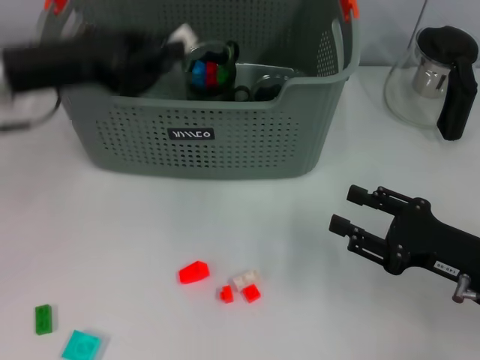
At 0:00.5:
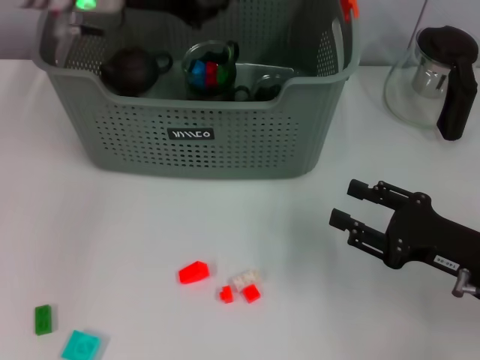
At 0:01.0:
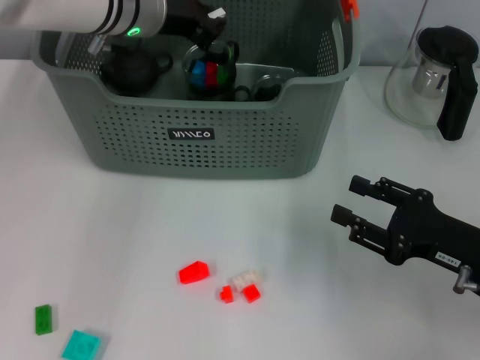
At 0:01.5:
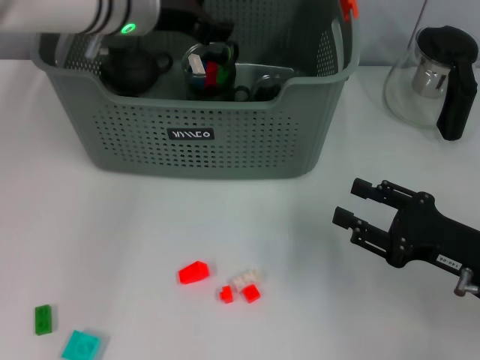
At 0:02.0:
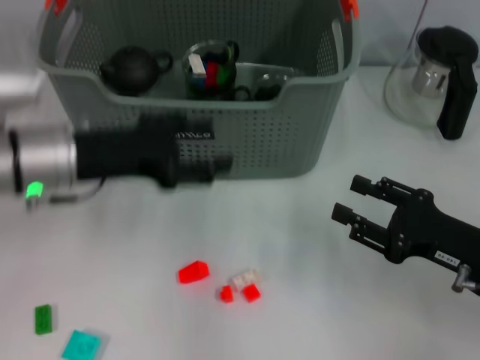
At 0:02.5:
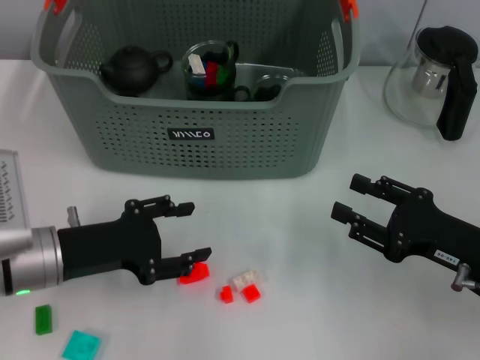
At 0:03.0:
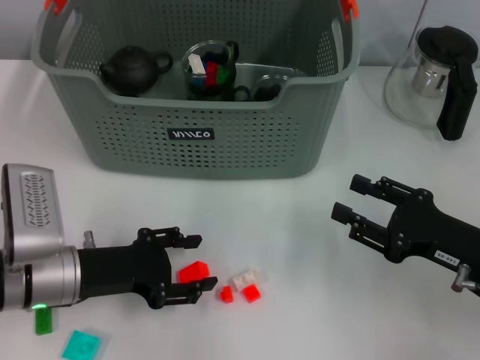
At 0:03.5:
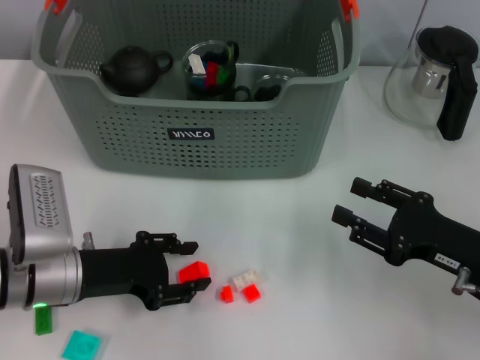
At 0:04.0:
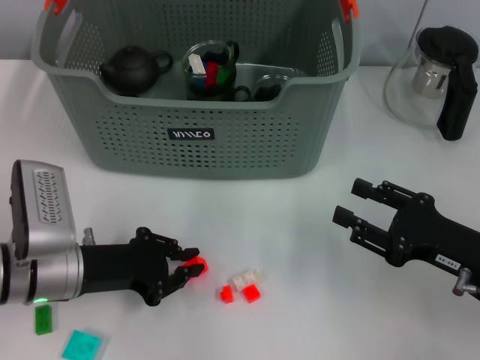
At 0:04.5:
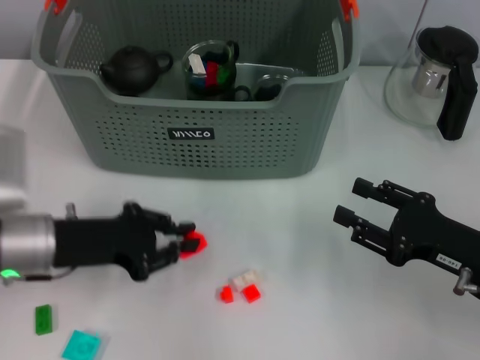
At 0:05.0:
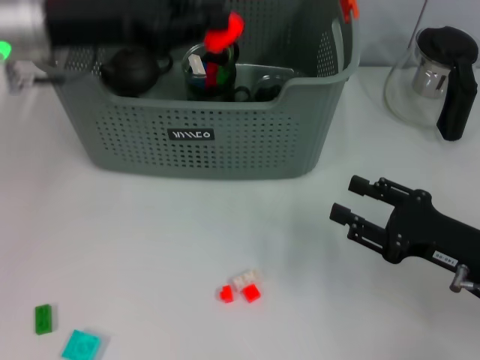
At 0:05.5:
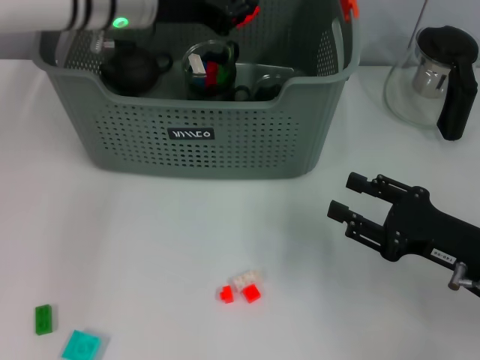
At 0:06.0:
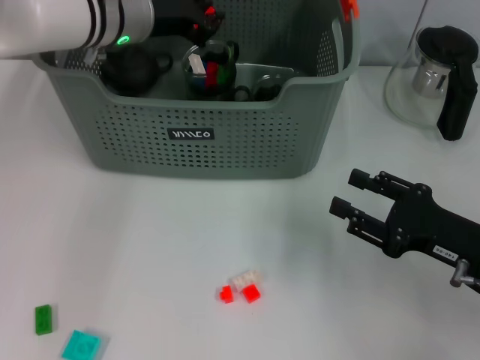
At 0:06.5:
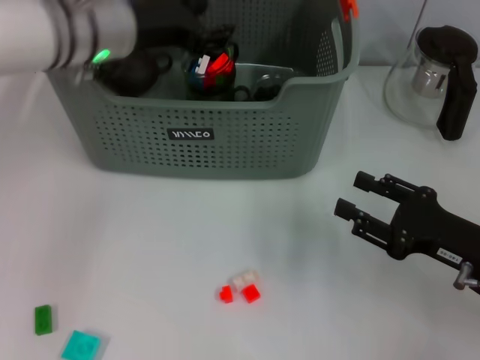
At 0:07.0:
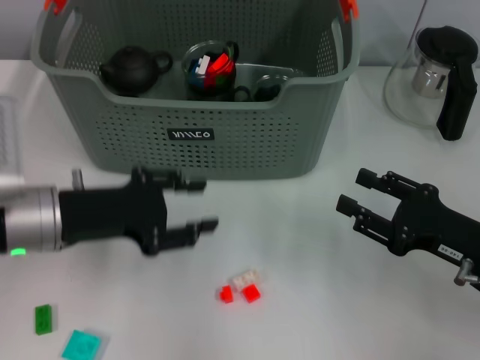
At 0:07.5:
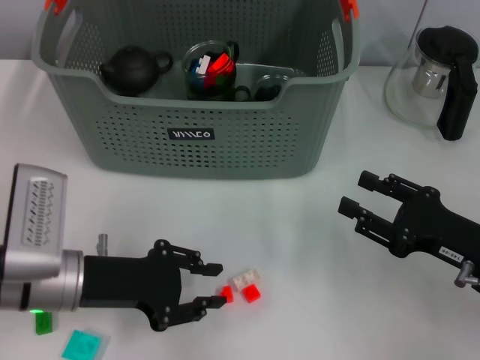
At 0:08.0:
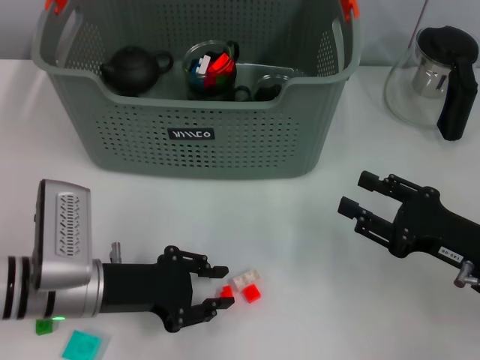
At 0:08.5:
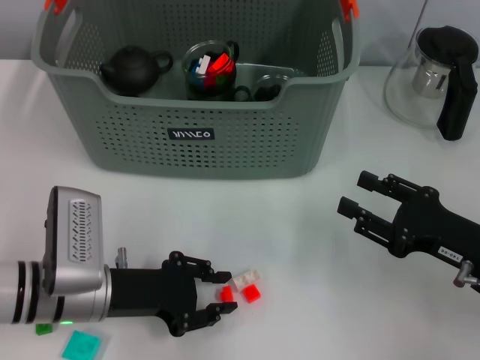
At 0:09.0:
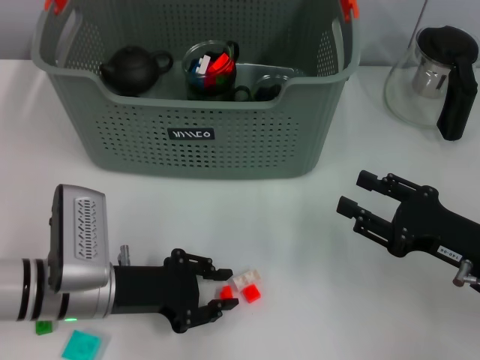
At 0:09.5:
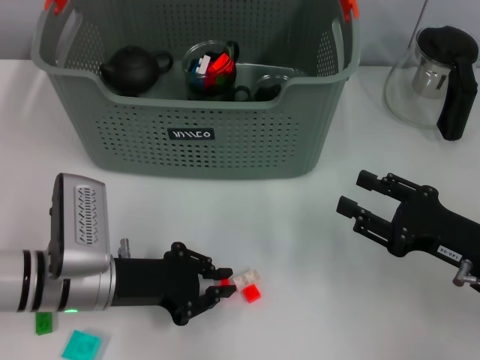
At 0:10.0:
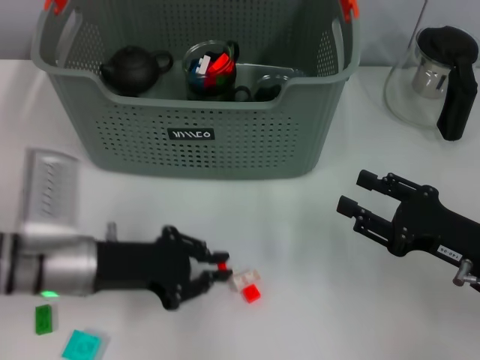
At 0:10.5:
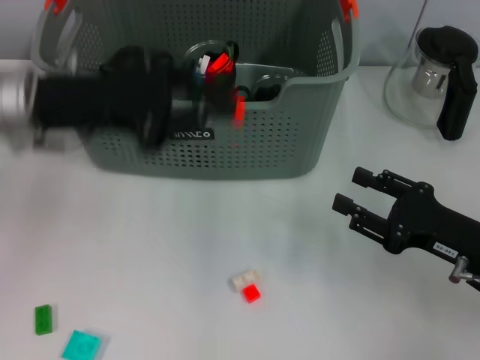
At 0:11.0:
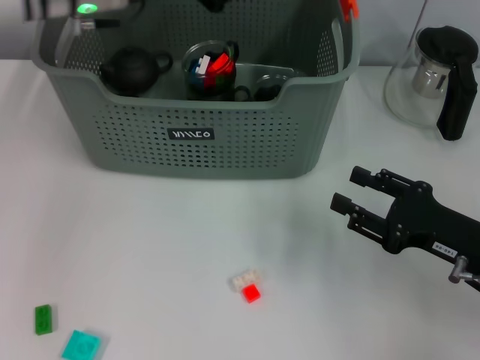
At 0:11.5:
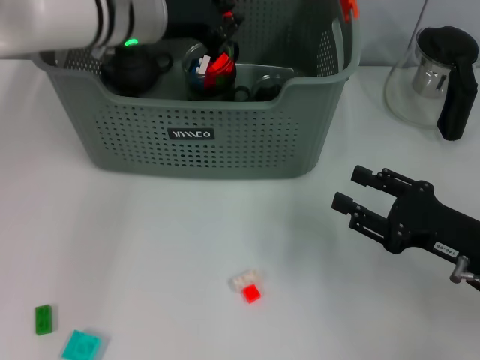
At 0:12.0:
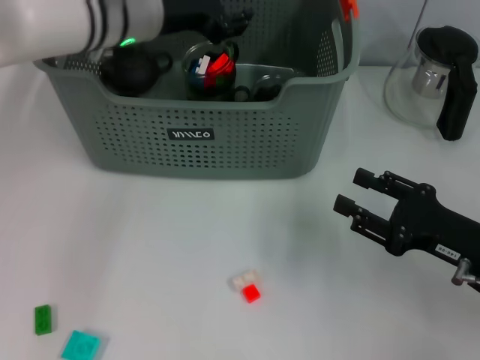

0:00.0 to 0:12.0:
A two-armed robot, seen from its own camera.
Task of the whole recording: pick up the teacup on the table and place it into the storage bin, pick up the block on the table and place it into the storage bin.
Step, 0:01.5 to 0:04.0: Grasp the orange block with left gripper.
Step, 0:04.5 to 0:06.0: Place the orange block in the storage box with left gripper.
Step, 0:06.5 to 0:09.5: Grasp the orange block with left gripper.
Step, 0:10.0 to 0:11.5: Place the orange block in the storage box with left gripper.
0:00.0 to 0:02.0: The left gripper is displaced downward by some 5 cm, travels forward and back again, roughly 10 cm each way, and opens its fingers.
0:02.0 to 0:04.0: The left gripper moves downward and backward, some 10 cm, and closes its fingers.
0:04.0 to 0:06.0: The left gripper is displaced forward, upward and to the right by approximately 25 cm.
0:06.0 to 0:08.0: The left gripper shifts some 25 cm backward and downward.
0:08.0 to 0:10.0: The grippers move only a little.
0:10.0 to 0:12.0: The left gripper is displaced forward, upward and to the right by roughly 25 cm, and opens.

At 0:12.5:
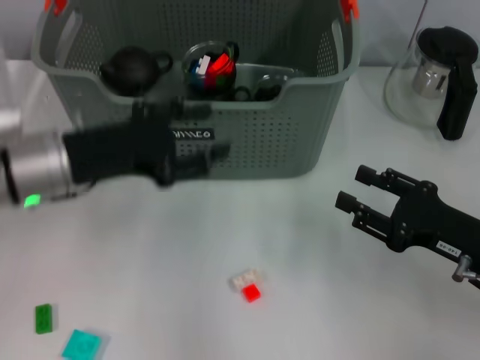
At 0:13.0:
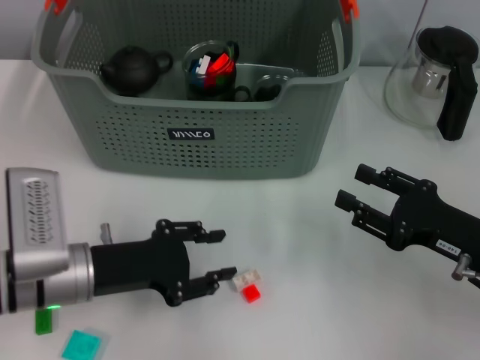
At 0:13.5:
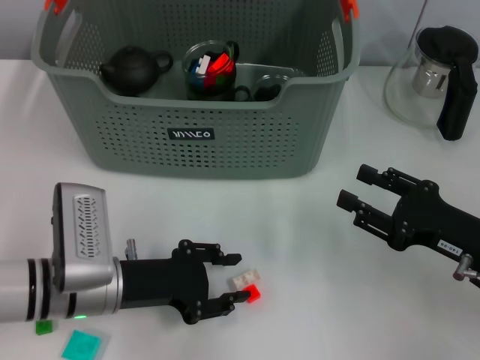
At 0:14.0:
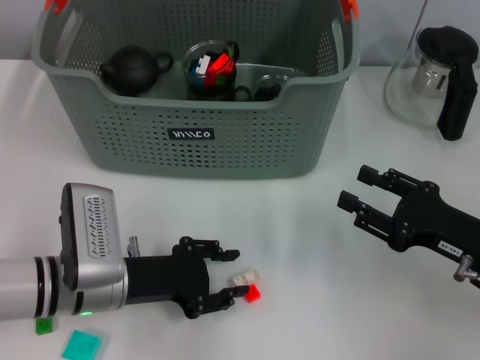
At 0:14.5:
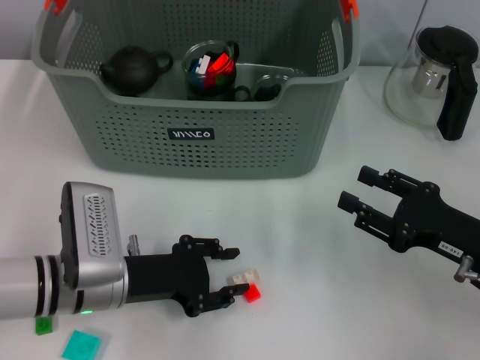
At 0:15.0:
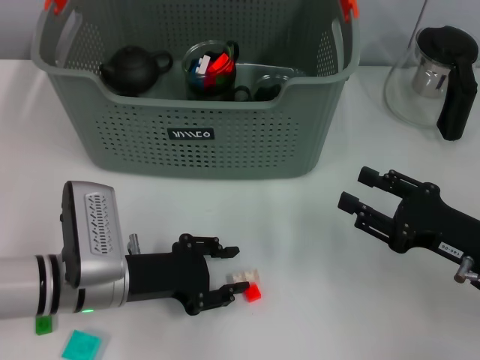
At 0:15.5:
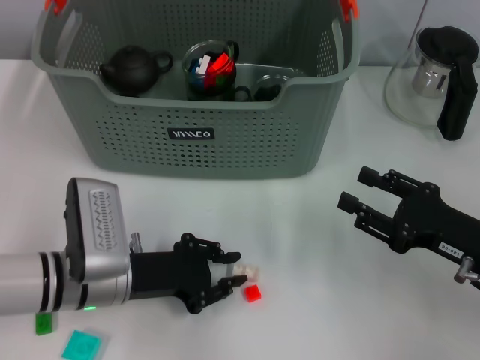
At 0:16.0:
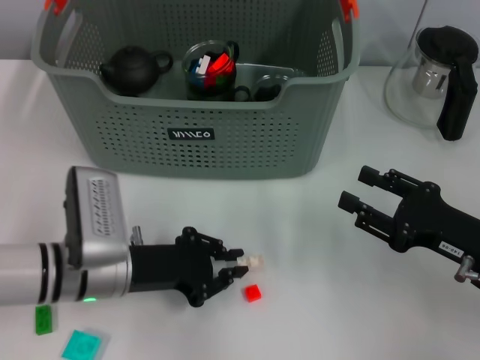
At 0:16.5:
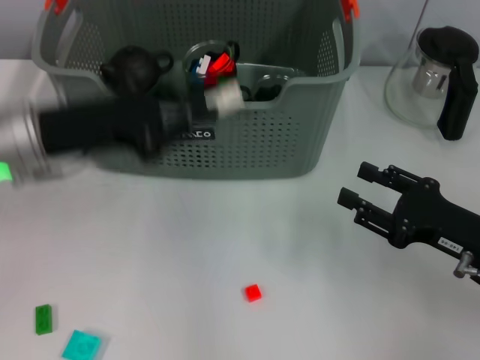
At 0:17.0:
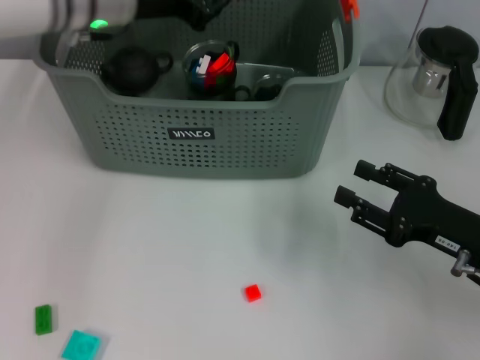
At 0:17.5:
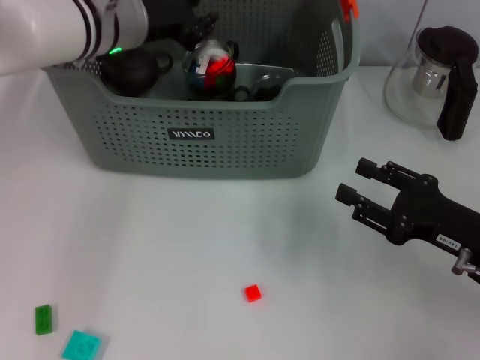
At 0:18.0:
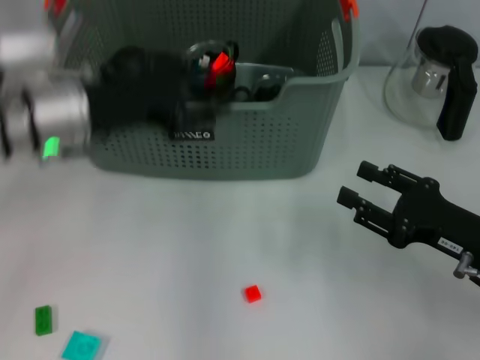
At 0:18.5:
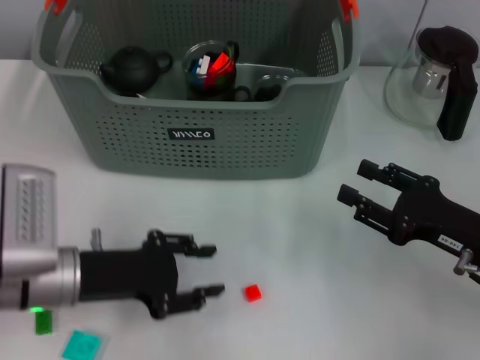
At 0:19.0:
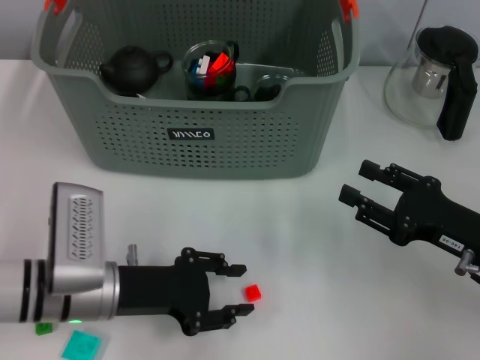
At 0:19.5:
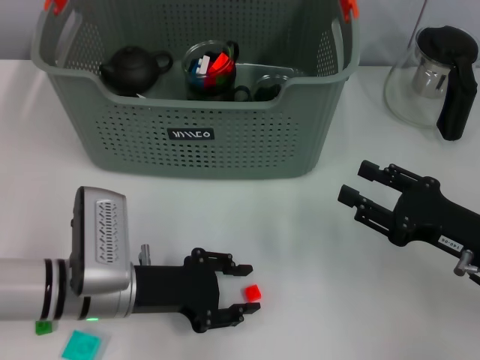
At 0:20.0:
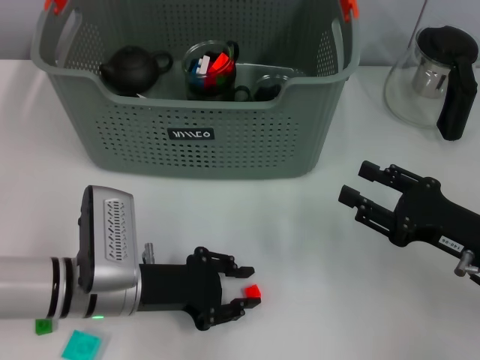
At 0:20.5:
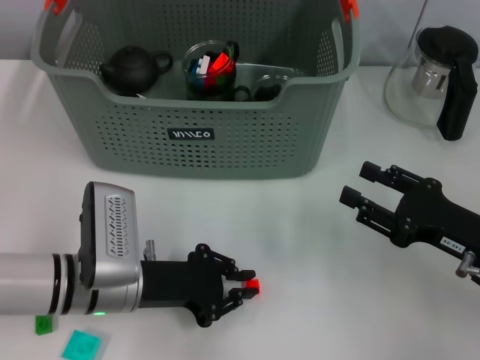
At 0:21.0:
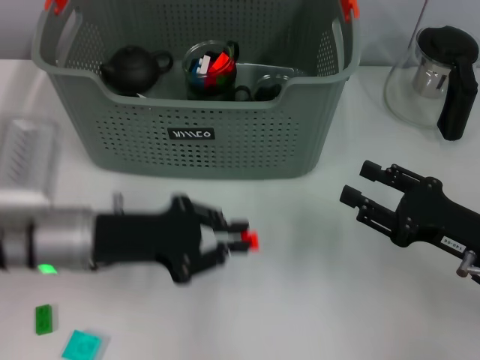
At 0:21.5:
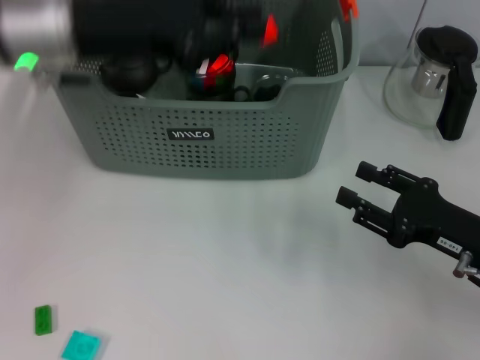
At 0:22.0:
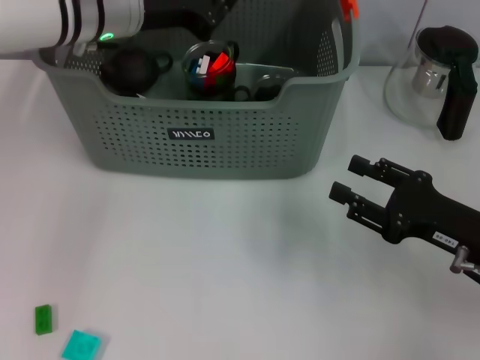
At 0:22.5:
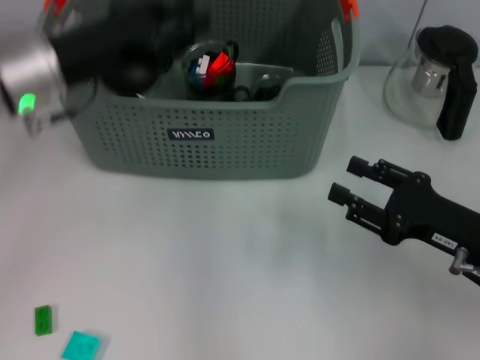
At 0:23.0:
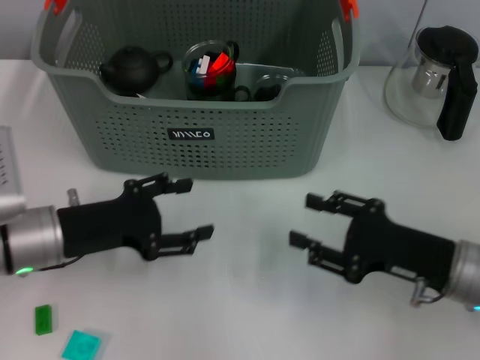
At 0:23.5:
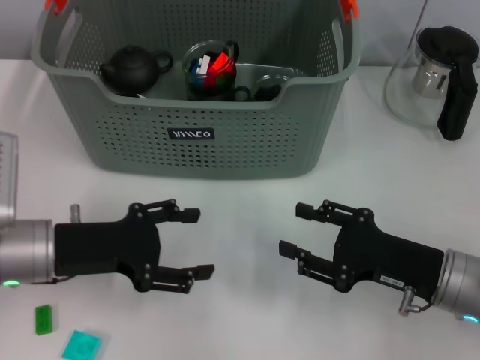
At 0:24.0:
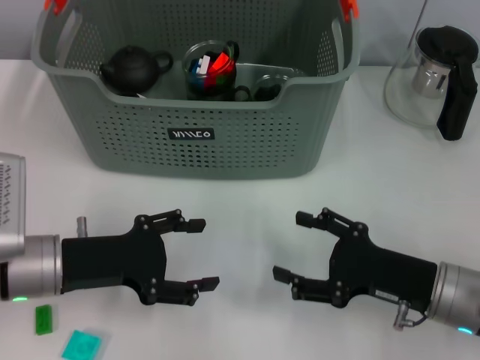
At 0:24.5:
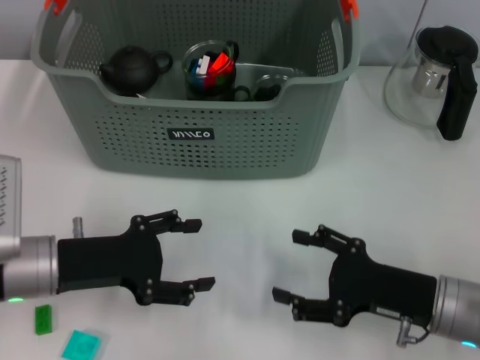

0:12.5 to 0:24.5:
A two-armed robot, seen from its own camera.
Task of the whole recording: pick up the teacup on the table and place it into the storage bin, pick up the block on the table and place it into the storage bin.
Step, 0:12.5 to 0:15.5: Grasp the white block with left gripper.
Step, 0:16.0 to 0:17.5: Place the white block in the storage box with left gripper.
Step, 0:18.0 to 0:20.0: Grasp the orange block with left gripper.
Step, 0:20.5 to 0:21.5: Place the orange block in the storage box with left gripper.
0:12.5 to 0:14.5: The left gripper is displaced downward by approximately 10 cm.
0:14.5 to 0:16.5: The left gripper is displaced upward by roughly 15 cm, and closes up.
0:16.5 to 0:18.5: The left gripper moves downward, about 10 cm, travels forward and back again, about 10 cm each way, and opens its fingers.
0:18.5 to 0:20.5: The left gripper moves to the right, roughly 5 cm, and closes up.
0:20.5 to 0:22.5: The left gripper moves upward and forward, some 20 cm.
0:22.5 to 0:24.5: The right gripper shifts by roughly 5 cm; the left gripper shifts roughly 15 cm downward and backward, and opens.

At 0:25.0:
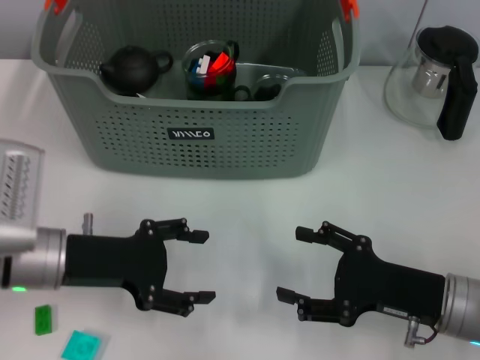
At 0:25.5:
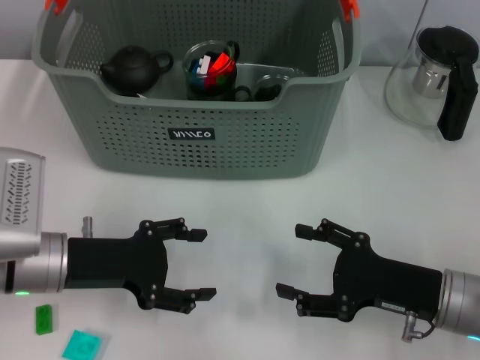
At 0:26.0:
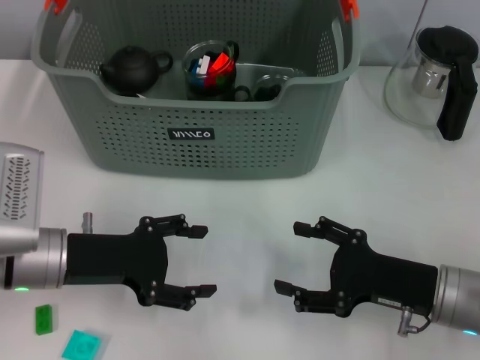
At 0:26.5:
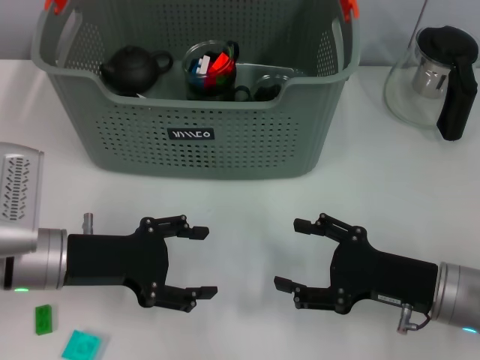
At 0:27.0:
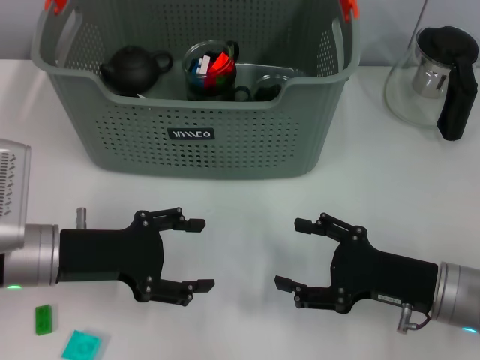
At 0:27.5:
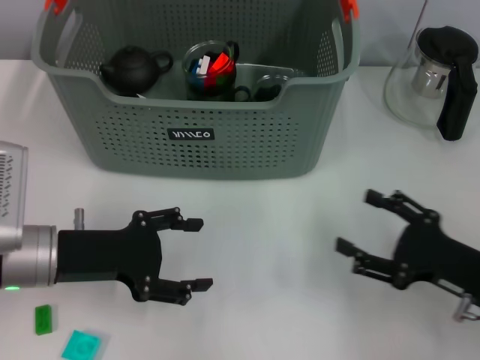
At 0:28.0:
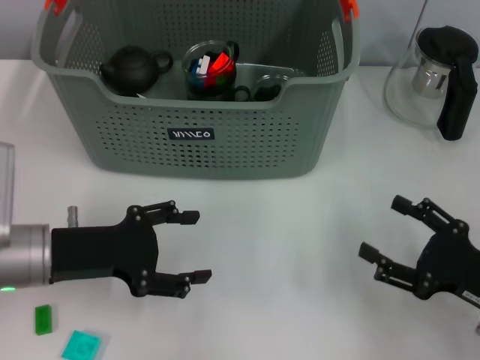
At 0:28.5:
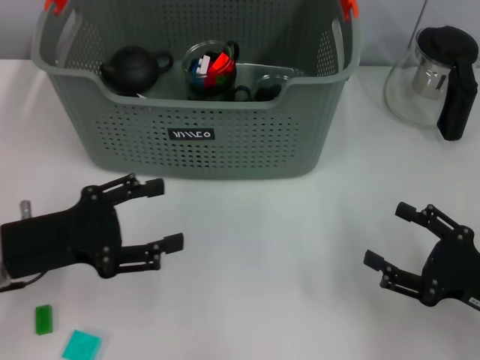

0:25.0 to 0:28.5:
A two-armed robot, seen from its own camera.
Task of the whole recording: pick up the teacup on the table and place it into the storage bin, pick up the block on the table and place it into the storage bin.
0:25.0 to 0:27.0: The grippers make only small movements.
0:27.0 to 0:28.5: The right gripper is displaced to the right by about 5 cm.
